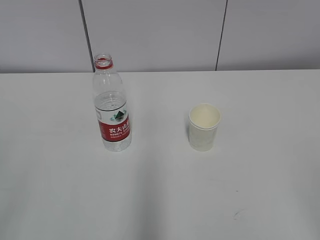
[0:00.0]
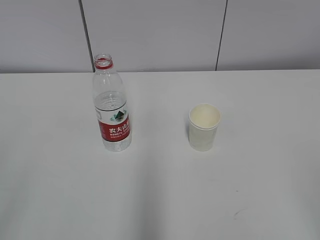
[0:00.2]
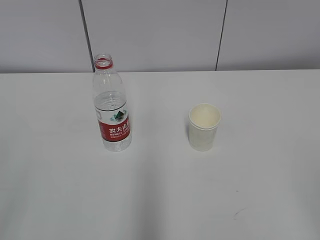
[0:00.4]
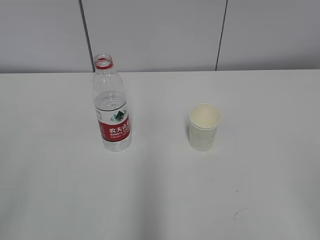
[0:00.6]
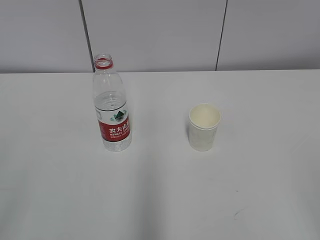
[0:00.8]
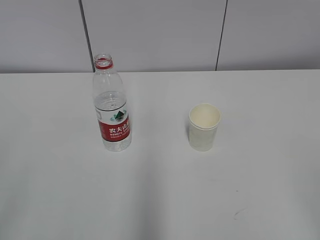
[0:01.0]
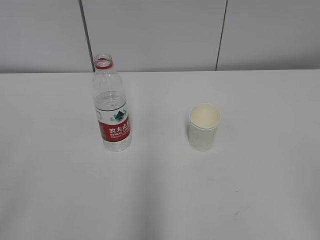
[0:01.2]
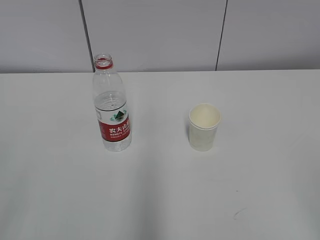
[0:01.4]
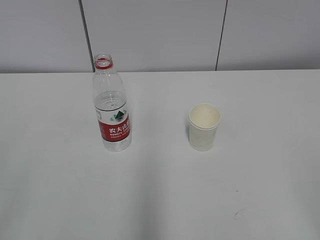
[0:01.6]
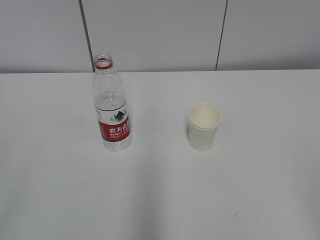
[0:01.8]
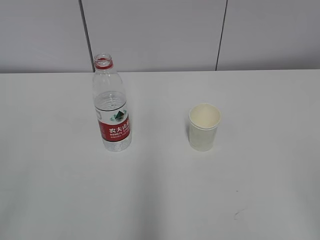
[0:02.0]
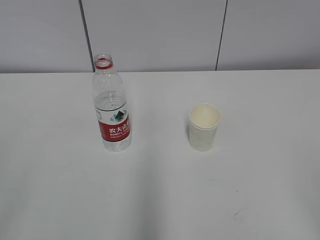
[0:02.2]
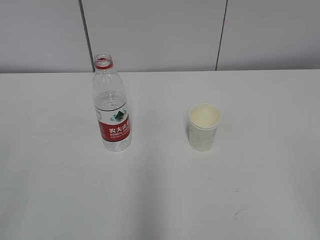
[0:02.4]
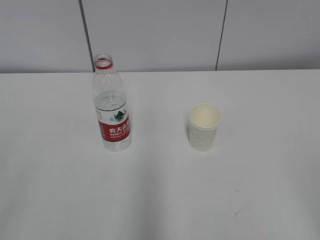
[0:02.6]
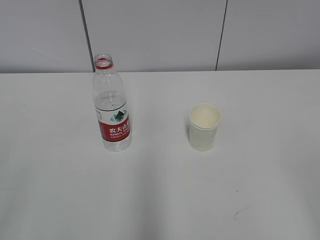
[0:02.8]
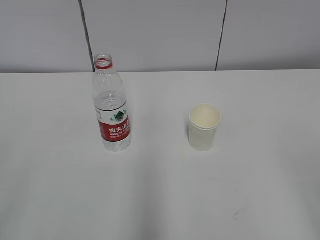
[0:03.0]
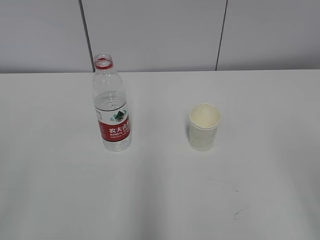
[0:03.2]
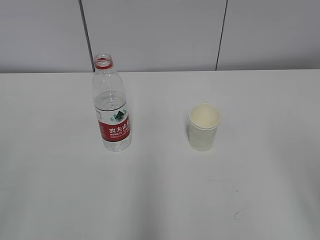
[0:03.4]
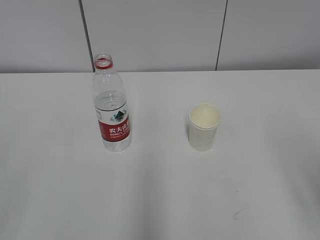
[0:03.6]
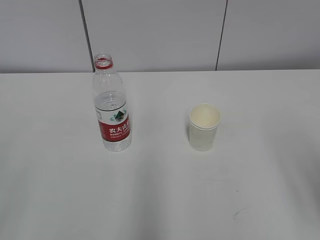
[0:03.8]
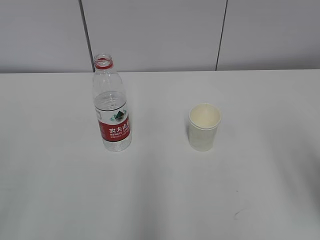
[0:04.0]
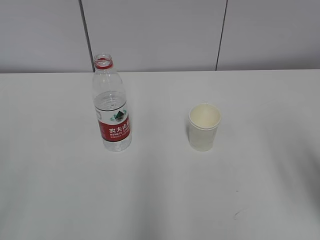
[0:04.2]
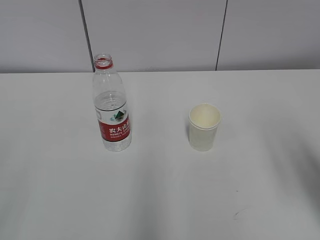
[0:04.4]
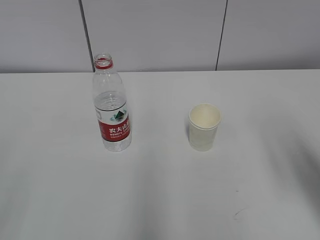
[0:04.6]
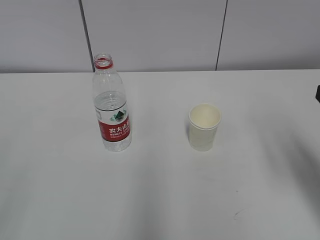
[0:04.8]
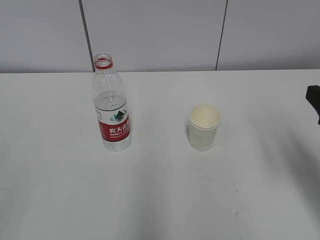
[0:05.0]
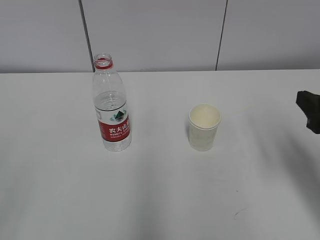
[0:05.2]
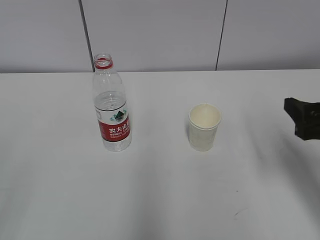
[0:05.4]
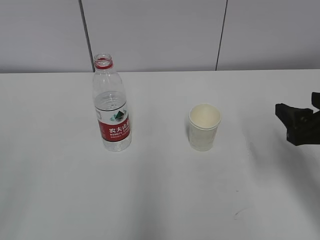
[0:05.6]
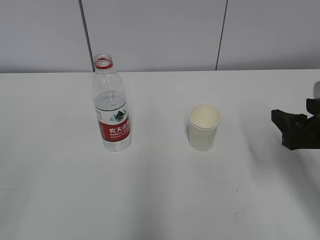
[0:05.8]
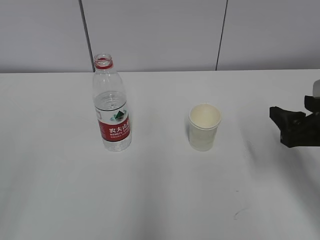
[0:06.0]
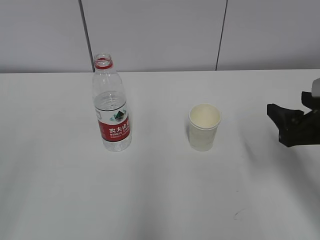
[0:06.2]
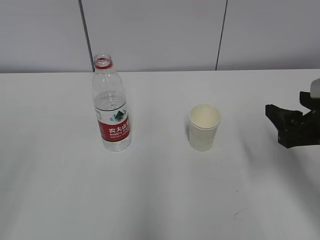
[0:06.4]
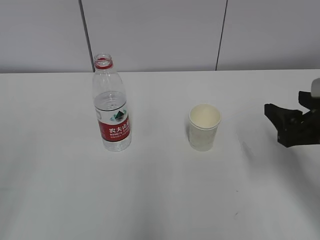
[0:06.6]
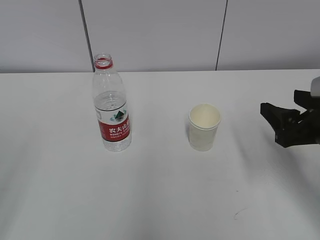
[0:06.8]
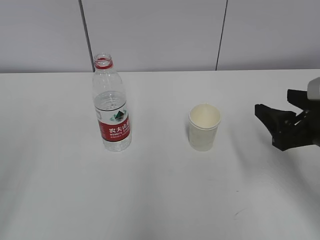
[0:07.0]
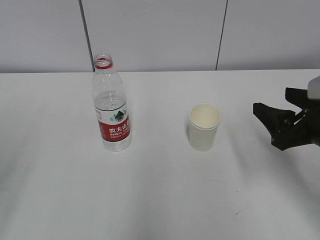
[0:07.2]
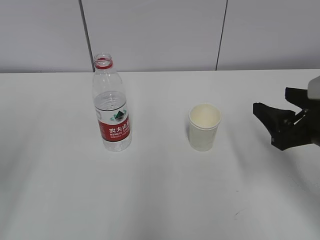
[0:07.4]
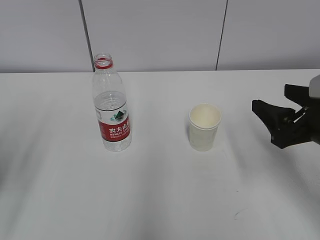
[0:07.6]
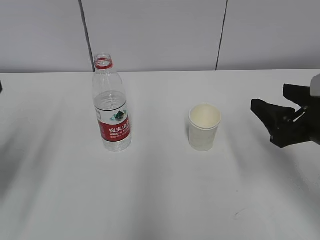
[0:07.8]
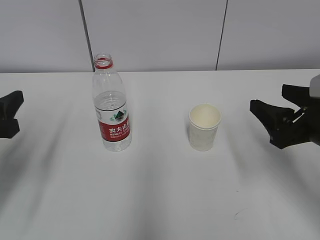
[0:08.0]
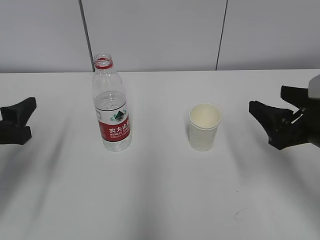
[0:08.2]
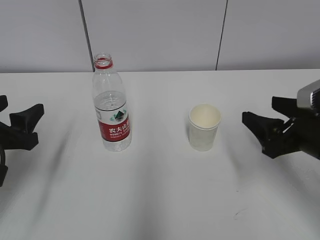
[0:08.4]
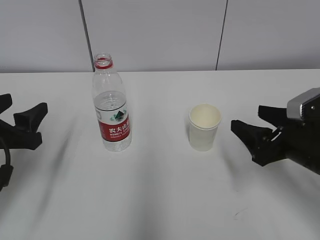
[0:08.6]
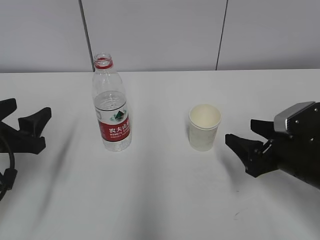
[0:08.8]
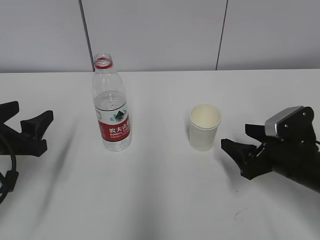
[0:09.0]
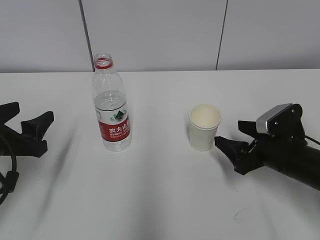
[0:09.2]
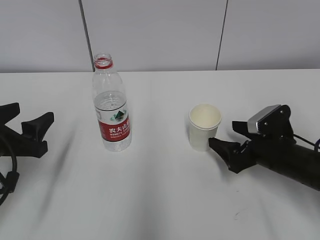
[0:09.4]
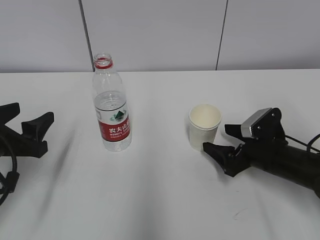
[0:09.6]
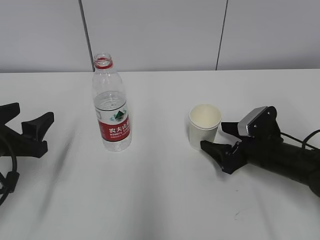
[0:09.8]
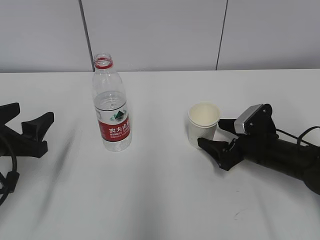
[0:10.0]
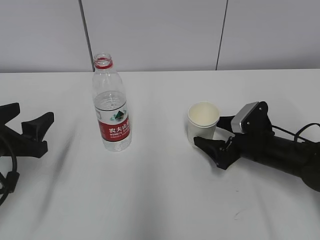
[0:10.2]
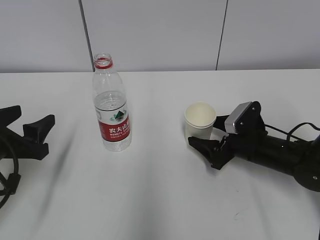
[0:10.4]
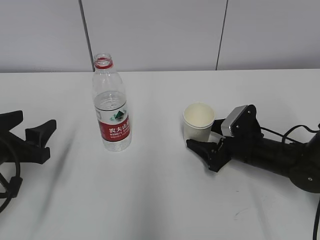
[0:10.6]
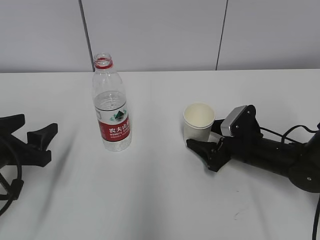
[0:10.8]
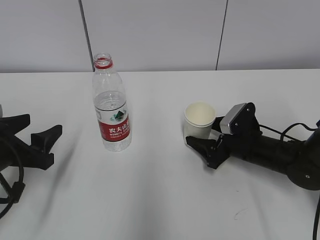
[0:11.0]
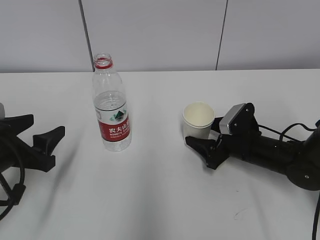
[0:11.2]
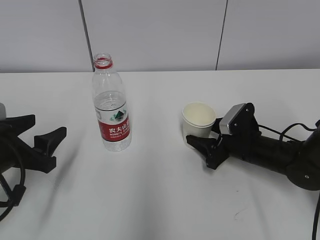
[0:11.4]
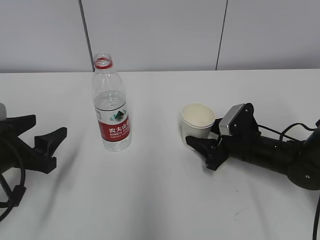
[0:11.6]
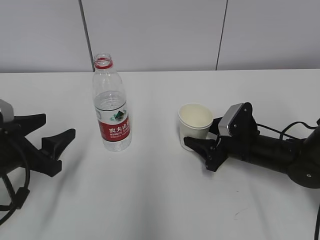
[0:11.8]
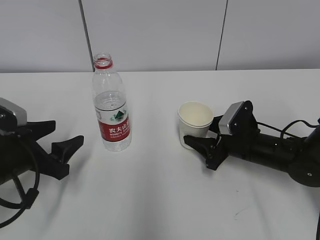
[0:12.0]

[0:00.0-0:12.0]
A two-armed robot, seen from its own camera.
Step, 0:00.0 to 0:09.4: Grab the paper cup with the right hand.
Step, 0:09.6 to 0:11.4: Grab the water bottle with the left hand.
0:03.0 to 0:04.4: The right gripper is displaced forward by roughly 15 cm.
0:04.4 to 0:06.0: The right gripper travels forward and downward by some 15 cm.
0:07.6 to 0:09.0: The right gripper moves downward, some 10 cm. The left gripper moves downward and forward, about 10 cm.
0:09.0 to 0:10.4: The right gripper moves forward, approximately 10 cm.
0:10.4 to 0:12.0: The right gripper closes its fingers.

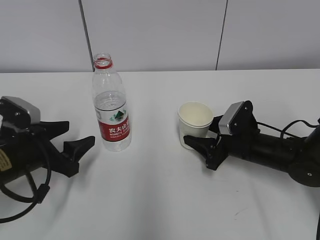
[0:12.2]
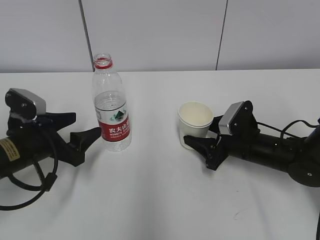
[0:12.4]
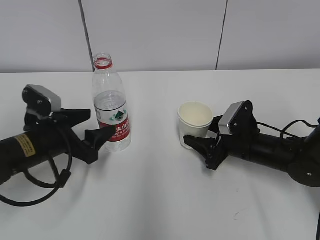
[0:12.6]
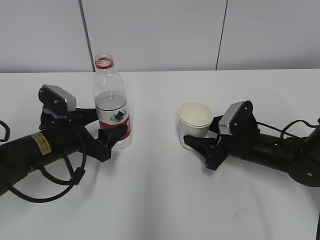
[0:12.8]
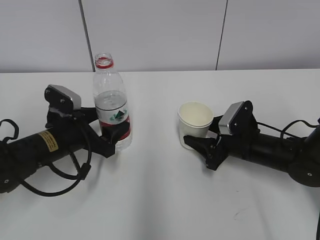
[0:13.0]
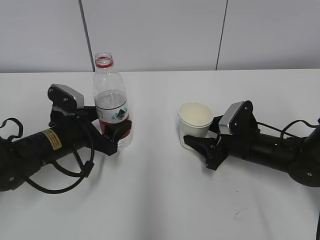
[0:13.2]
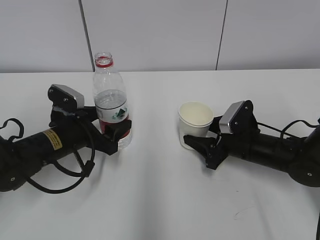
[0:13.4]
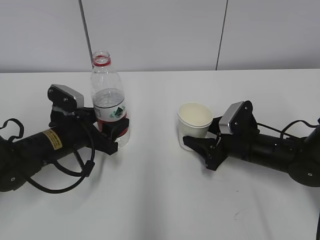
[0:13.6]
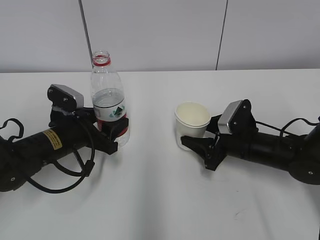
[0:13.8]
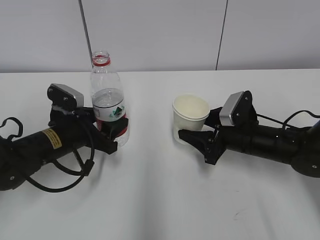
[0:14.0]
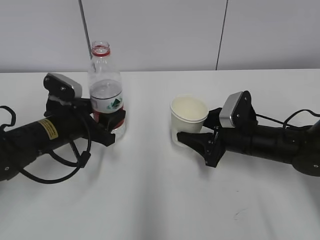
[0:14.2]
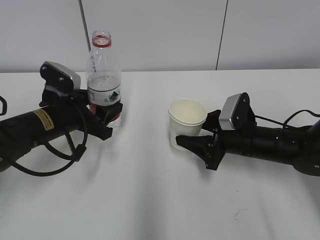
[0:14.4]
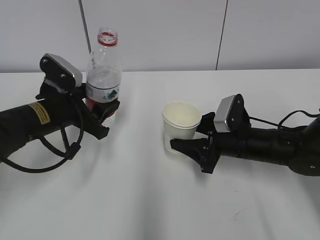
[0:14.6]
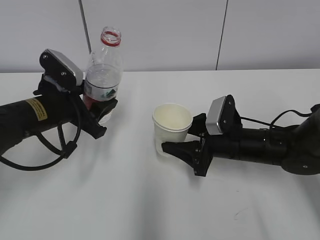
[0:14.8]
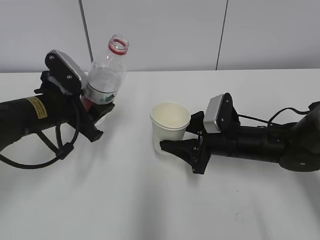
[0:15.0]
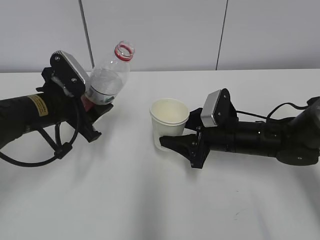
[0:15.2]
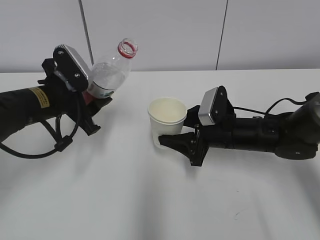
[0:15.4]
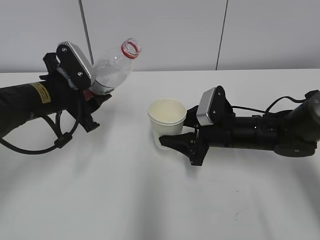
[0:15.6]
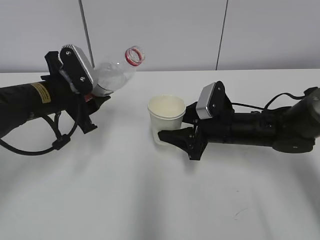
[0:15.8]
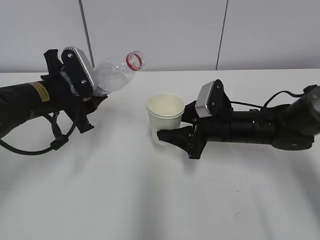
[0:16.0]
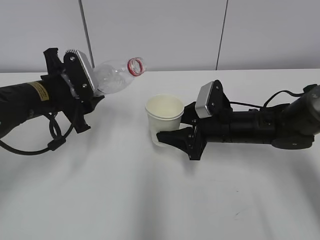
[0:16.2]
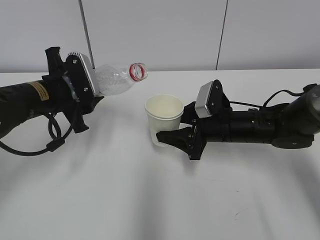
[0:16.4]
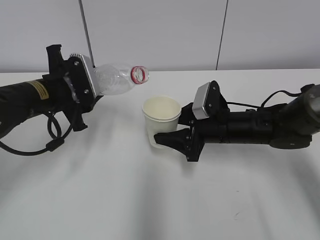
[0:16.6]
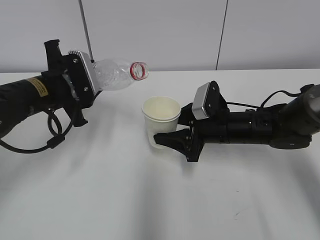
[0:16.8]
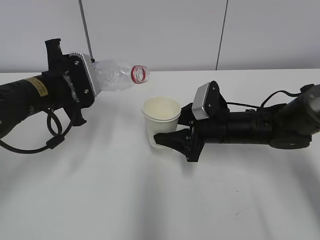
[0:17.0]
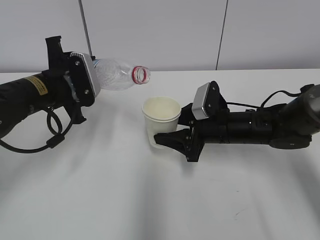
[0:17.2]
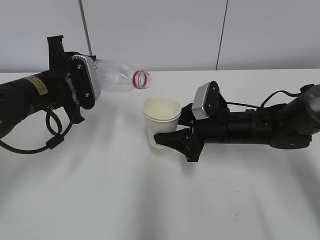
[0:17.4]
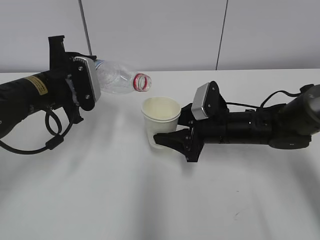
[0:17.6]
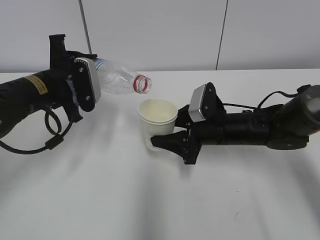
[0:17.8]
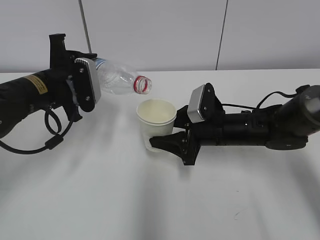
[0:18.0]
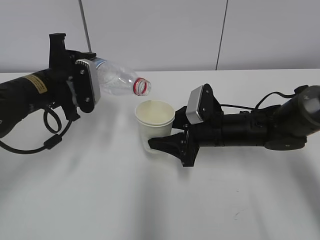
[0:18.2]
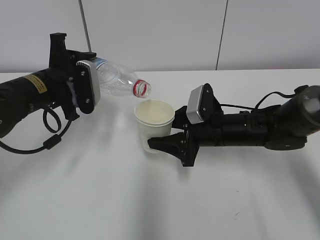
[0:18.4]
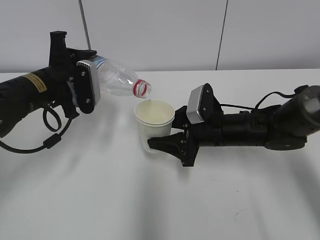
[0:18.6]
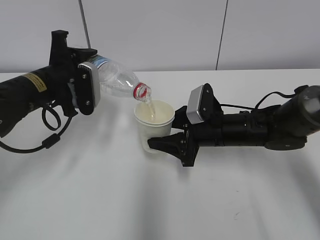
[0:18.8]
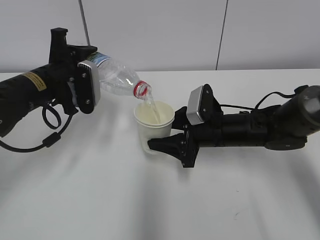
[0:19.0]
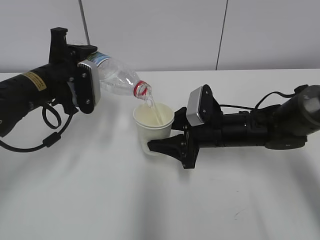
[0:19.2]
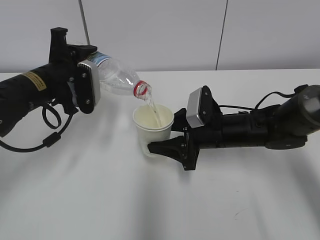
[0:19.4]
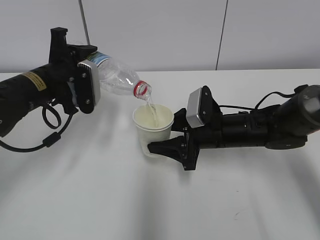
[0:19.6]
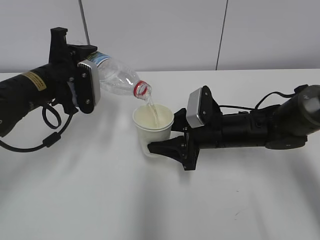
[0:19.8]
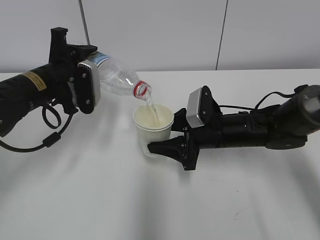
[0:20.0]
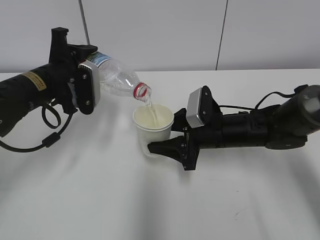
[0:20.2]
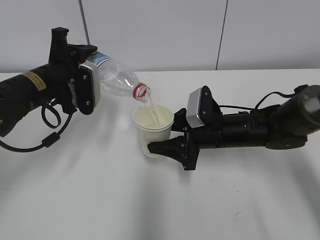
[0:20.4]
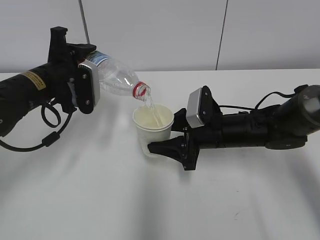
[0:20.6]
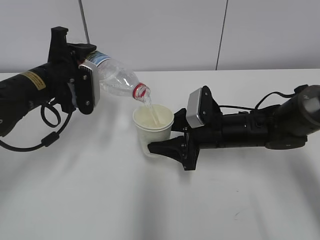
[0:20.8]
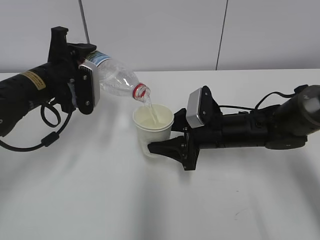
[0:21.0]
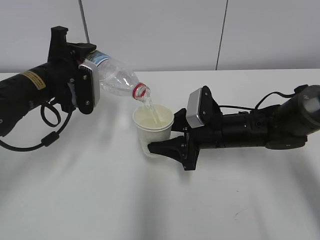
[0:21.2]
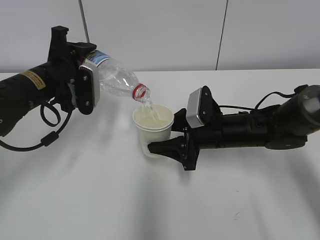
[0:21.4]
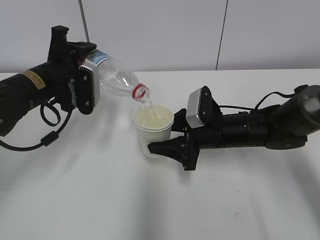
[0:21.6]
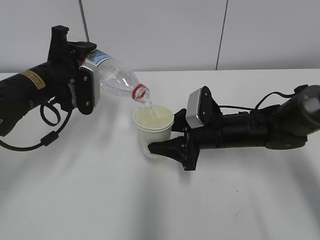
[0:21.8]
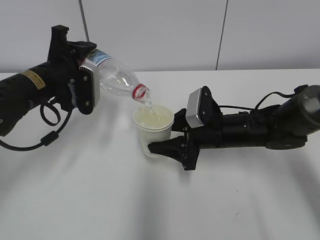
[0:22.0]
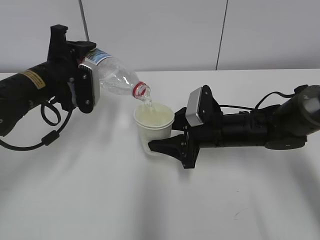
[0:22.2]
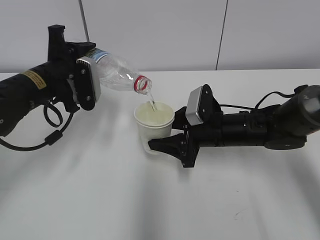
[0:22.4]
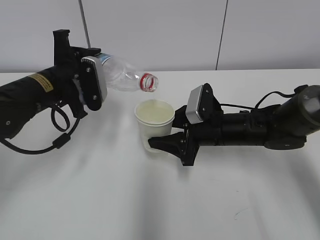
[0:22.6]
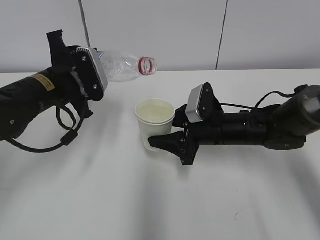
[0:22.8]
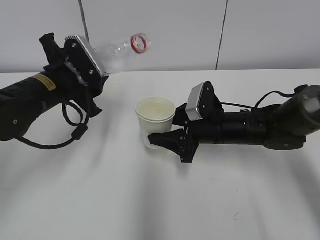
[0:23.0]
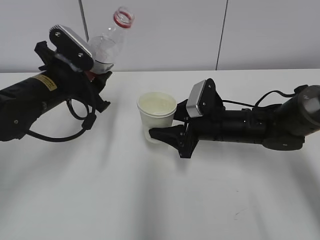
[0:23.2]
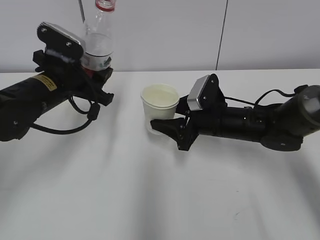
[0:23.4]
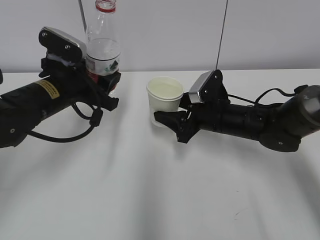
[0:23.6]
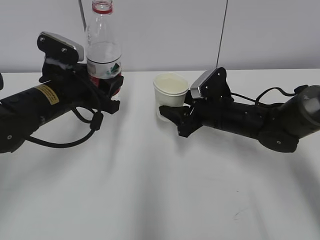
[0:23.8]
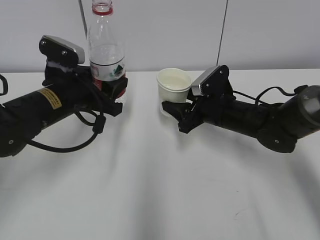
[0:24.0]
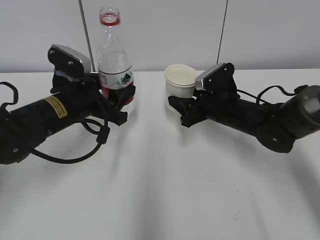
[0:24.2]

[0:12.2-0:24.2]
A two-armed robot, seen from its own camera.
Step, 0:12.2 to 0:15.4: Lift the paper cup with the right hand.
Step, 0:15.6 to 0:18.6: Fill water with the right hand.
Step, 0:15.6 to 0:18.6: Pour water with the left hand.
Step, 0:18.8 to 0:19.6: Collect water with the left hand.
Step, 0:19.8 to 0:22.0: Place the paper cup with the right hand.
Step, 0:22.2 to 0:22.4: Place the water bottle with the left hand.
0:12.2 to 0:13.8: The left gripper moves forward and to the right, about 10 cm, and closes its fingers.
0:13.8 to 0:15.2: The left gripper is displaced upward by approximately 5 cm.
0:16.6 to 0:18.2: The grippers move only a little.
0:18.2 to 0:19.8: There are only small adjustments of the grippers.
0:19.8 to 0:21.2: Neither gripper changes place.
0:21.2 to 0:22.6: The grippers move only a little.
